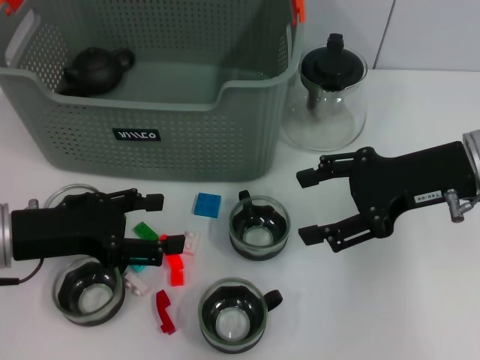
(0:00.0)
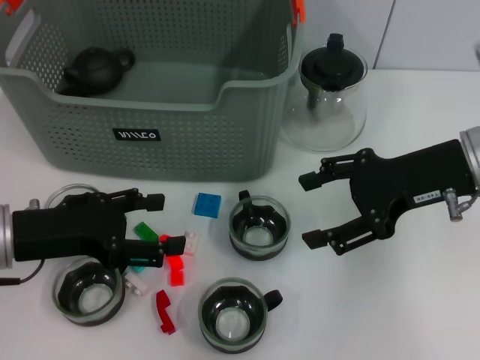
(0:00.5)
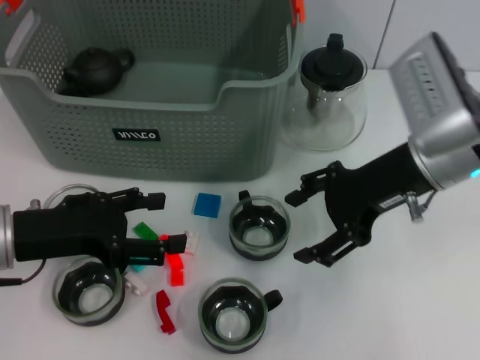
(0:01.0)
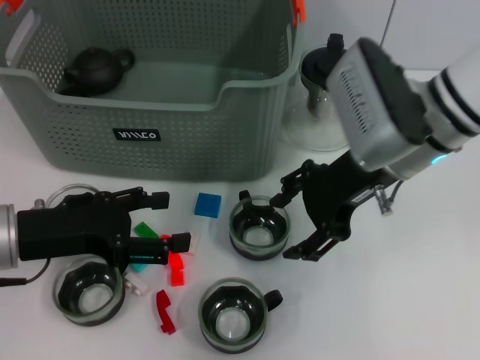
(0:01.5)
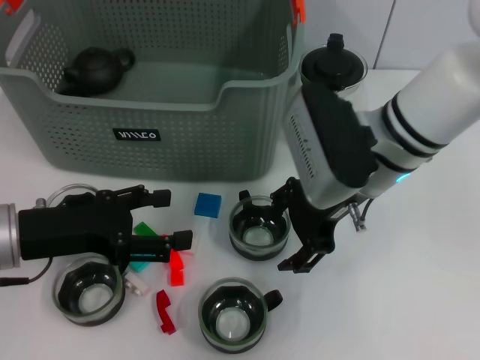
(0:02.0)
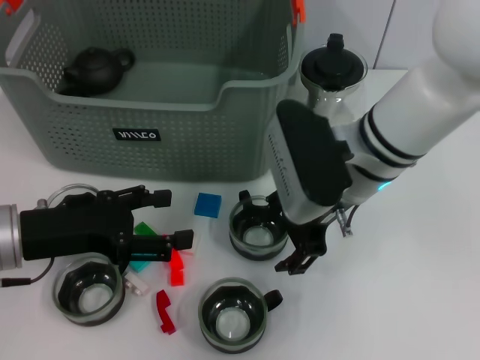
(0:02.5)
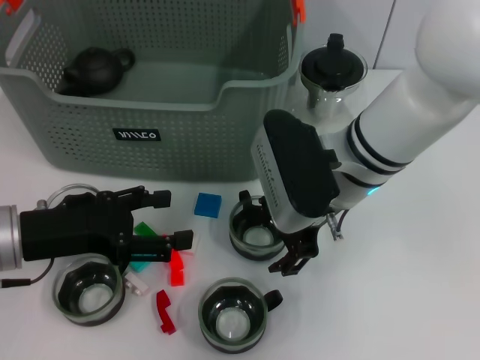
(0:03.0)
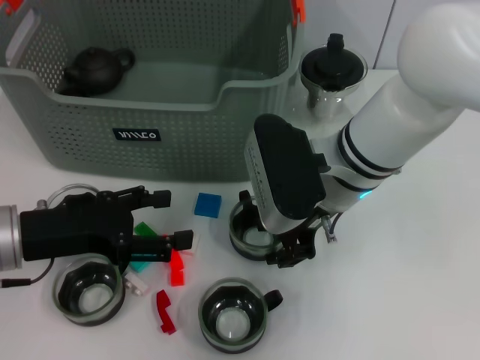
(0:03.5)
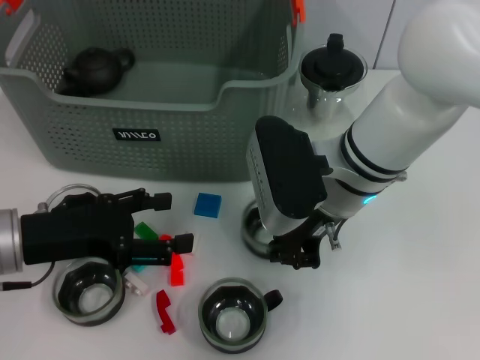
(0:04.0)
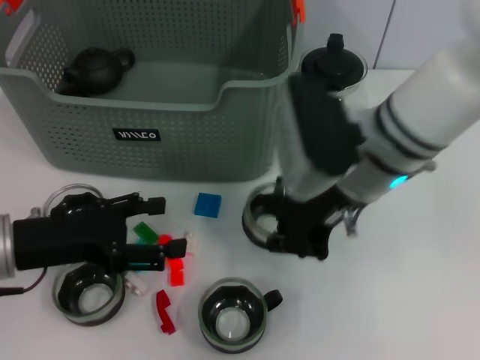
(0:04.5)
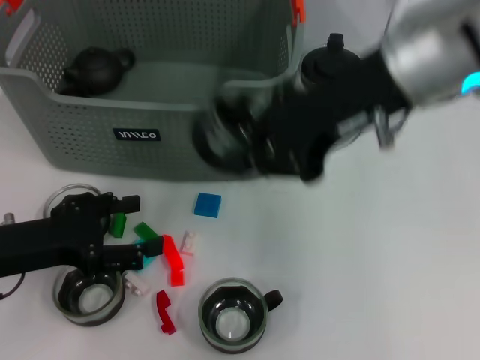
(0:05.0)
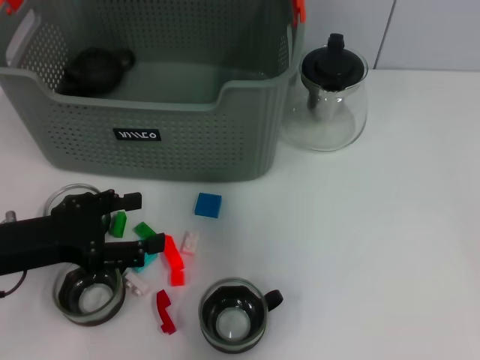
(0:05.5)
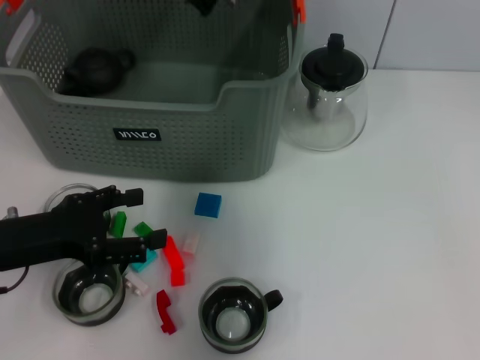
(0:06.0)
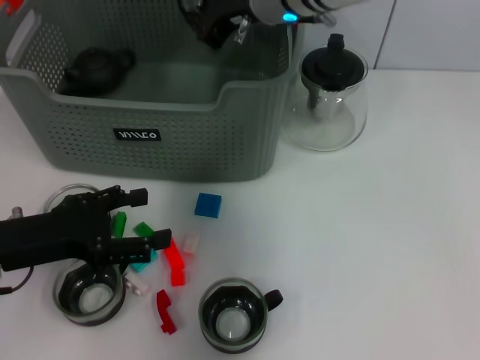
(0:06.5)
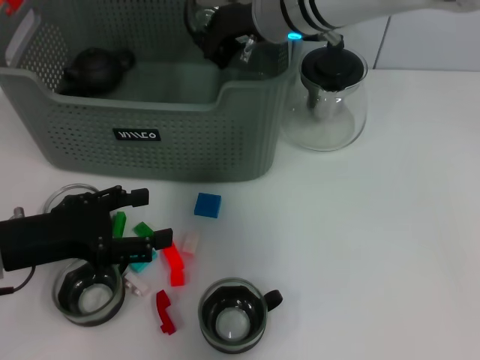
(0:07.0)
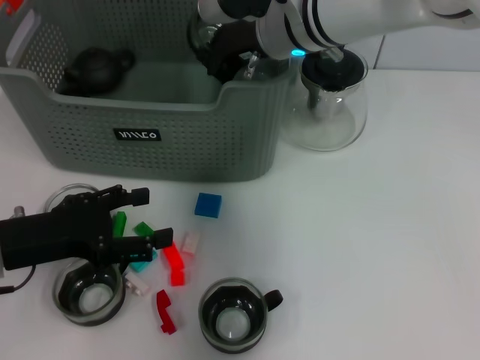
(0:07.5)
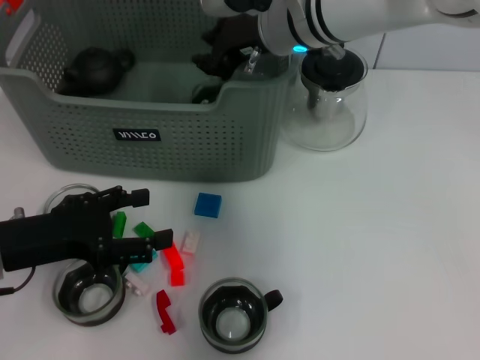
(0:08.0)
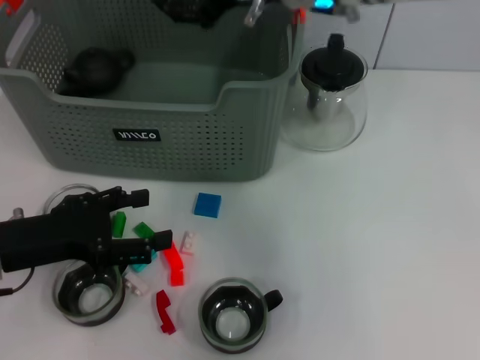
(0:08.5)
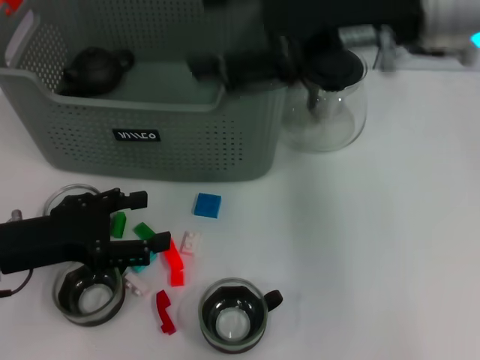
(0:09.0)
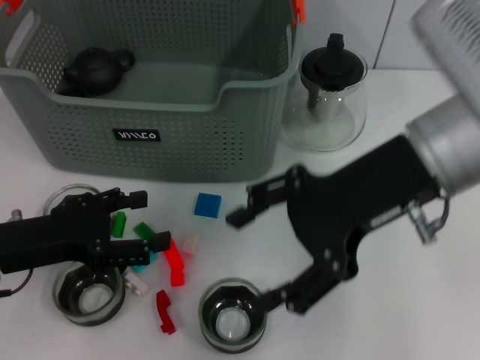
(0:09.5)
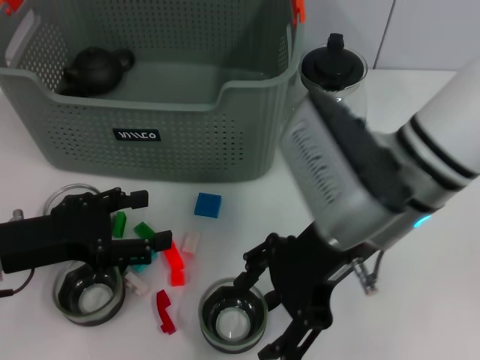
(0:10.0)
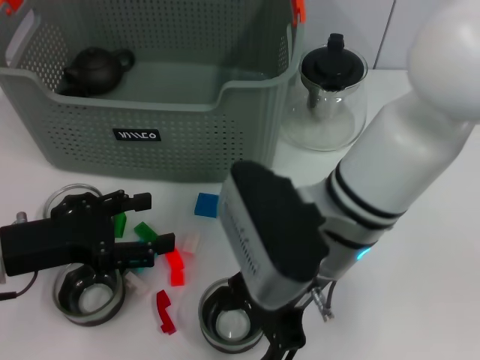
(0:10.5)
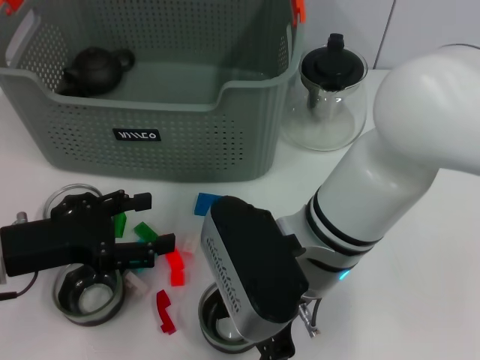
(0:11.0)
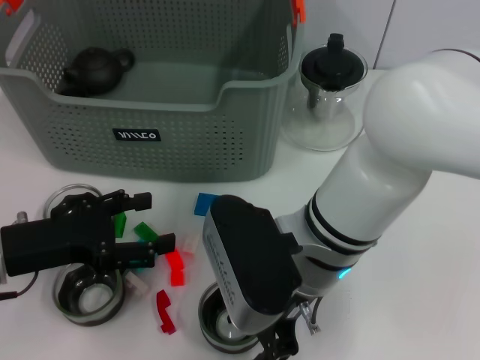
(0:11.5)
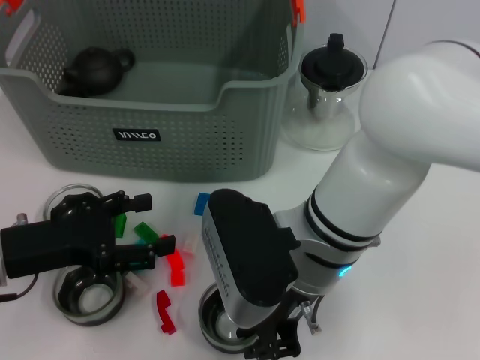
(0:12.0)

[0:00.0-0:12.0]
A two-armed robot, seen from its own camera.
Task of the whole recording: pick up the teacup on the table and place it into the storage bin, pick up the block on the table and place it into the storage bin.
Step, 0:00.0 to 0:04.0: Grasp the cup with right gripper.
Step, 0:04.5 to 0:08.5: Place the cup in the storage box with right gripper.
0:00.0 to 0:02.0: The right gripper is displaced to the left by approximately 10 cm.
0:02.0 to 0:04.0: The right gripper closes its fingers.
0:04.0 to 0:06.0: The right gripper travels upward and forward by some 15 cm.
0:06.0 to 0:08.0: The right gripper travels downward by approximately 5 cm.
0:08.0 to 0:10.0: The right gripper goes roughly 15 cm backward, and opens.
0:10.0 to 0:12.0: The right gripper moves downward and to the left, roughly 10 cm, and closes up.

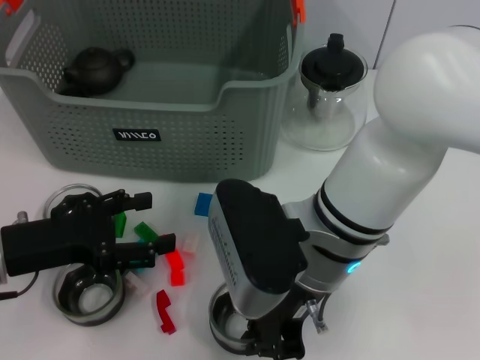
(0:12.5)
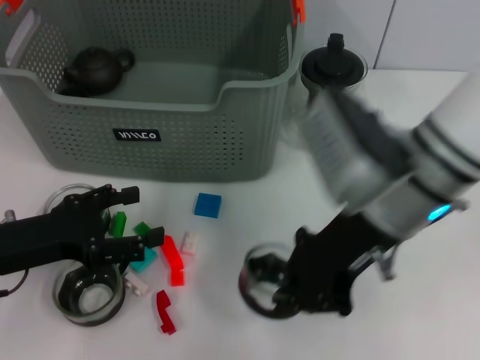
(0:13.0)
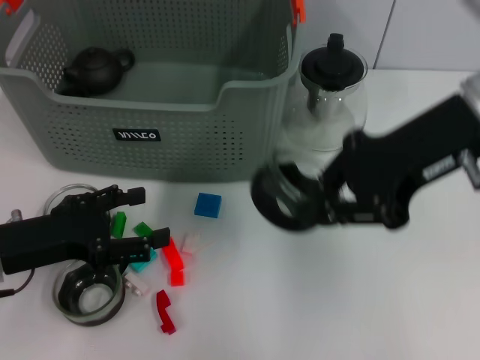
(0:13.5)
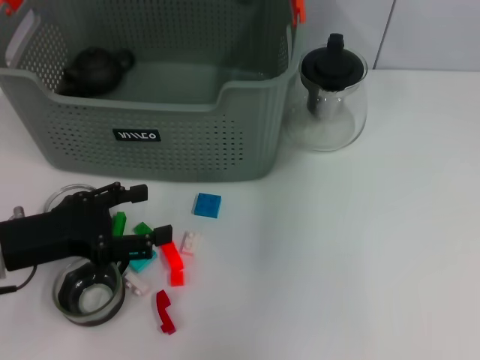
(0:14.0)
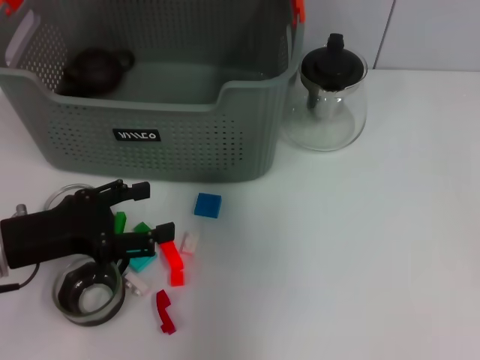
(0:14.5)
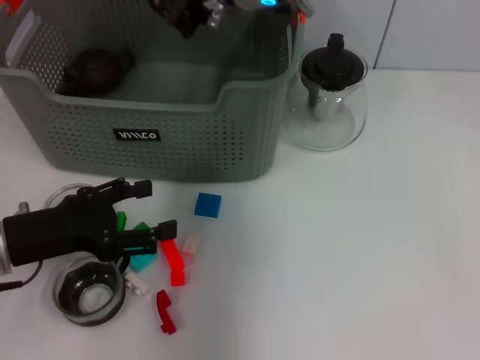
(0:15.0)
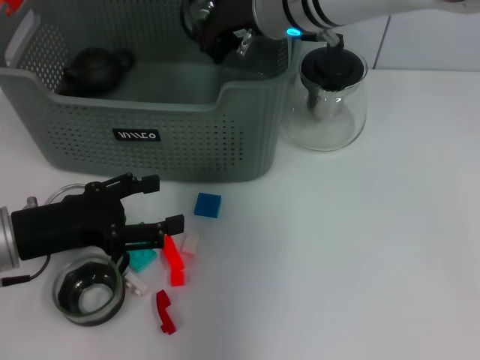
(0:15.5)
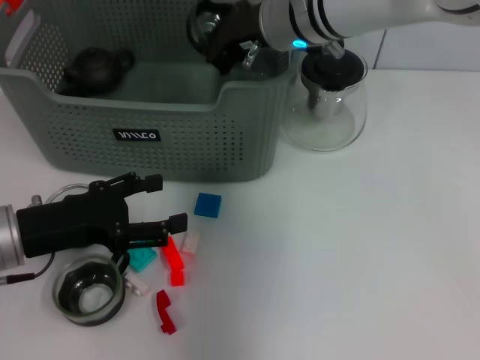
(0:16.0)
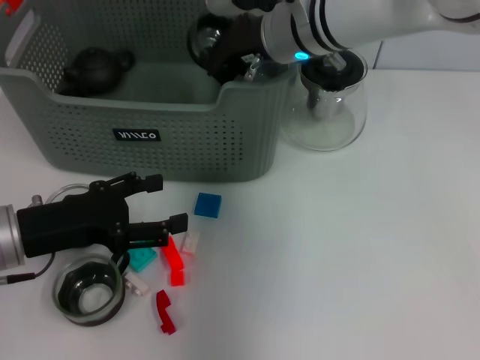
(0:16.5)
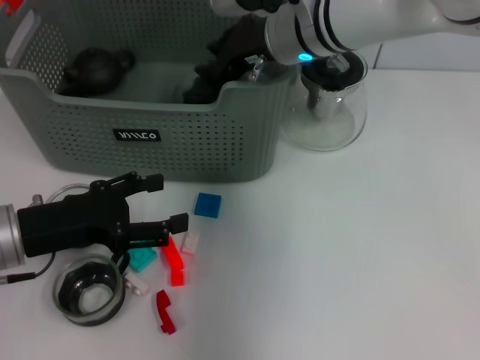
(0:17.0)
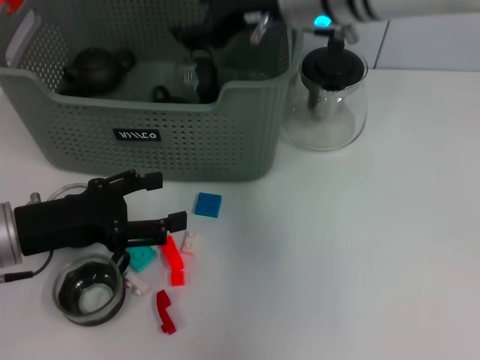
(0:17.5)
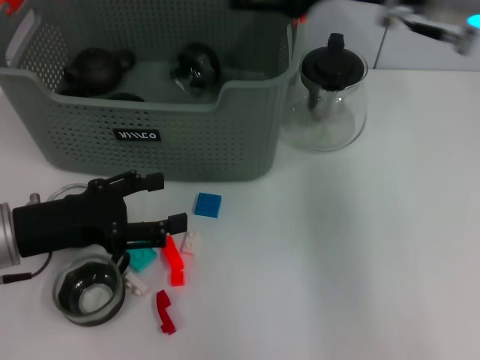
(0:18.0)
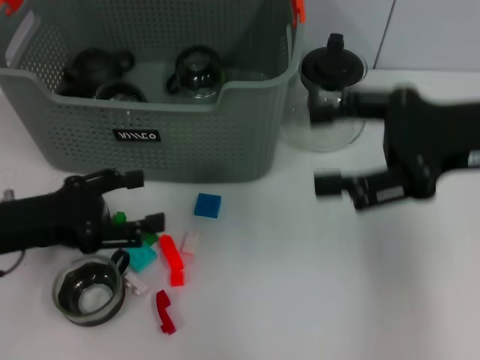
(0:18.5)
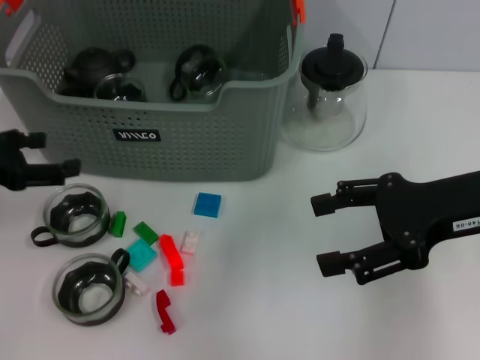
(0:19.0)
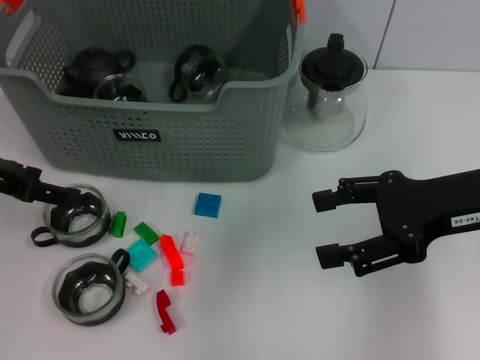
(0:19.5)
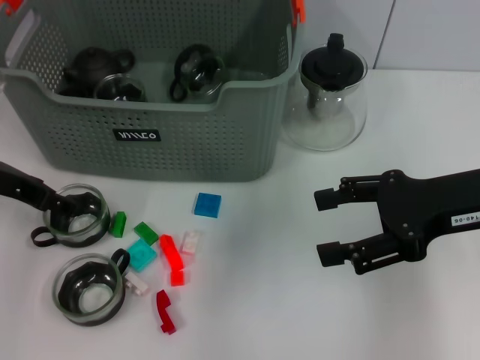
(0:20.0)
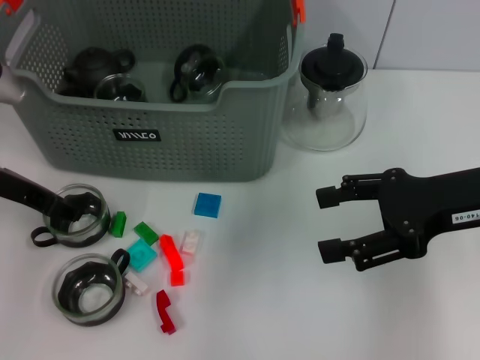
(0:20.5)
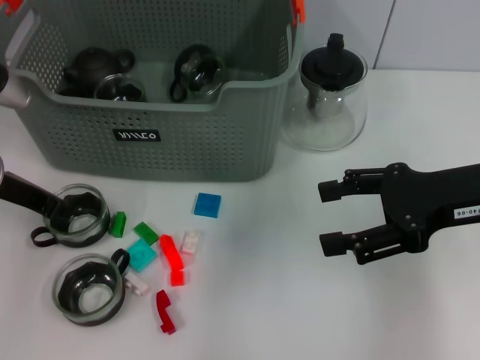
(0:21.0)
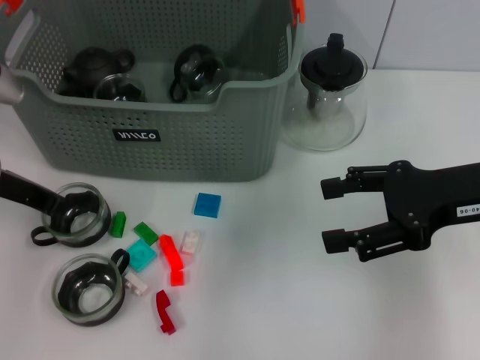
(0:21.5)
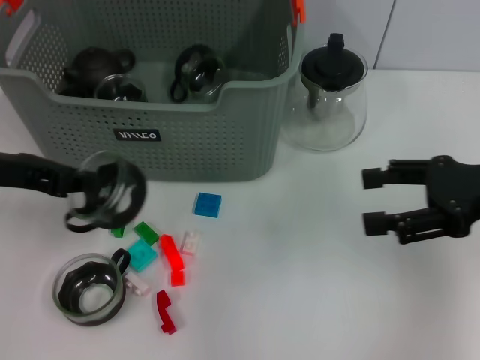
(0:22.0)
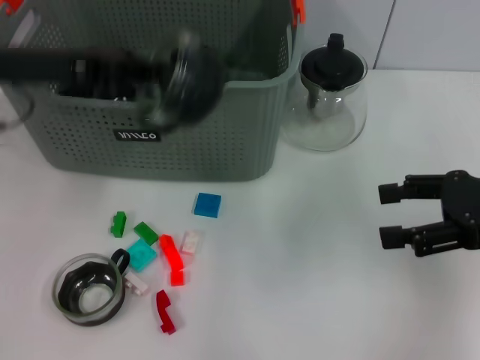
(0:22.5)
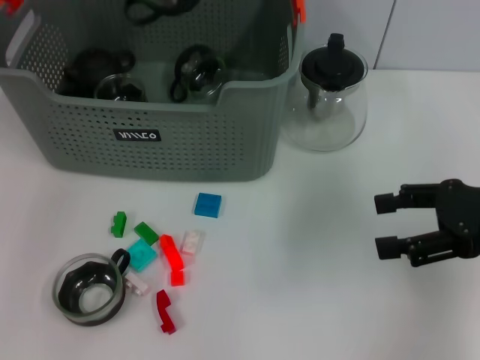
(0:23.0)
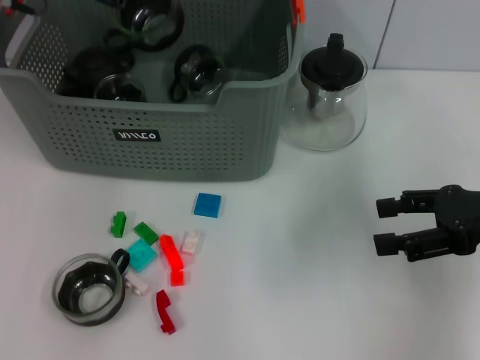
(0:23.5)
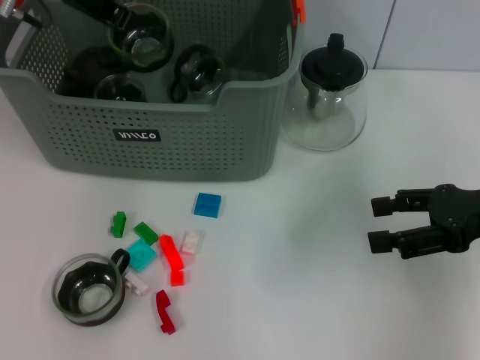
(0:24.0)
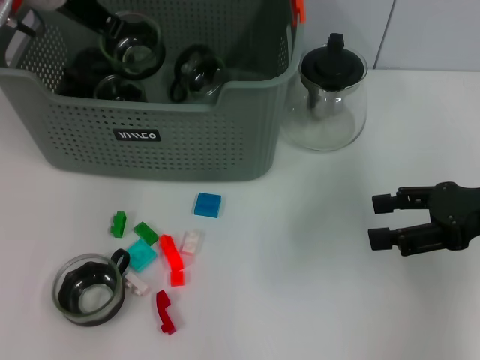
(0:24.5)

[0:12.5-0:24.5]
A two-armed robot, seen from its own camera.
Task of the whole recording: pick up the teacup on the table and place it into the storage bin, pick up the block on the table and place it into the storage bin.
Step, 0:12.5 to 0:17.5: Place the cup in the storage box with right gripper.
Step, 0:18.0 to 0:21.5: Grasp the cup with left gripper.
0:12.5 to 0:14.5: The right gripper moves forward and upward, some 25 cm.
0:14.5 to 0:16.5: The right gripper moves downward, roughly 10 cm.
0:16.5 to 0:18.5: The right gripper shifts roughly 25 cm to the right and backward, and opens up.
0:18.5 to 0:20.5: The left gripper heads forward, covering about 10 cm.
0:20.5 to 0:22.5: The left gripper is displaced upward by roughly 10 cm, and closes its fingers, while the right gripper moves to the right, approximately 5 cm.
0:22.5 to 0:24.5: The left gripper goes about 10 cm forward.

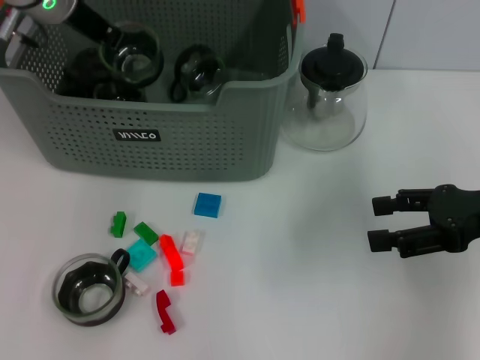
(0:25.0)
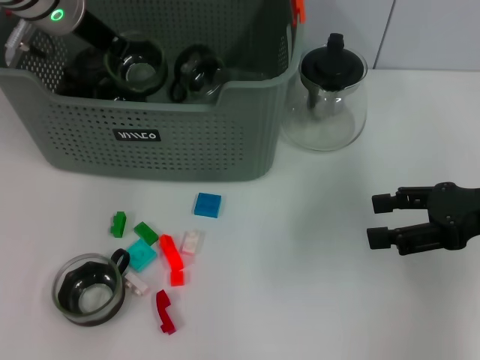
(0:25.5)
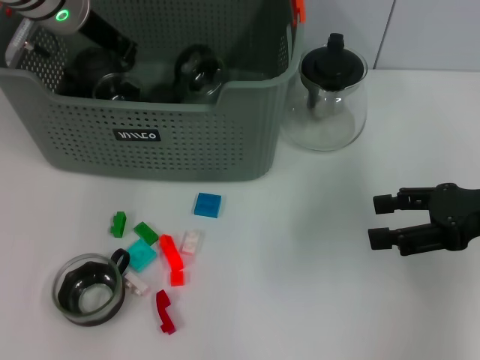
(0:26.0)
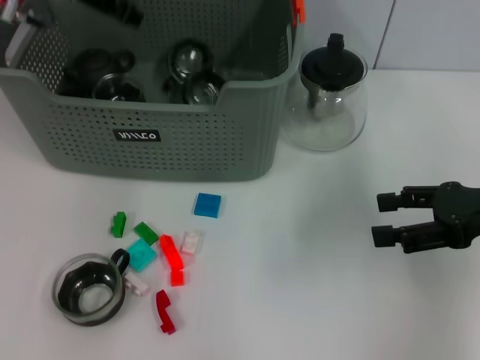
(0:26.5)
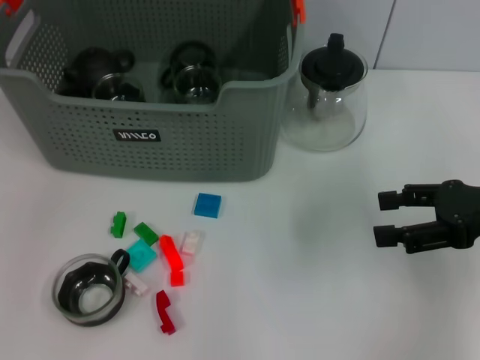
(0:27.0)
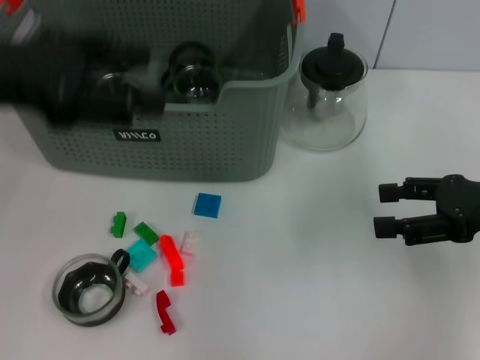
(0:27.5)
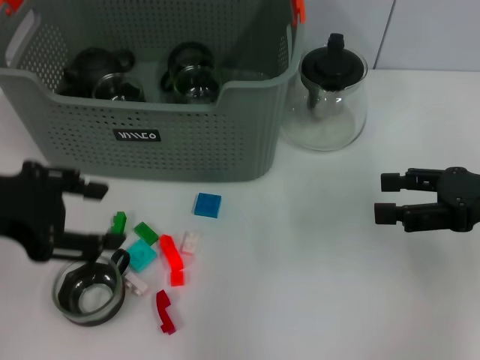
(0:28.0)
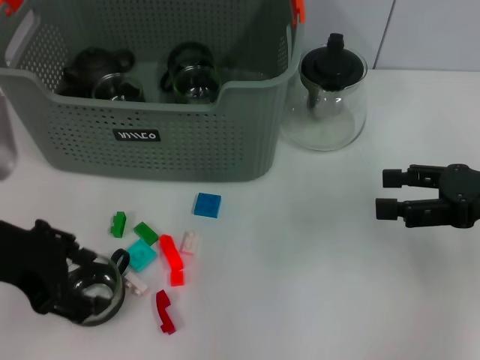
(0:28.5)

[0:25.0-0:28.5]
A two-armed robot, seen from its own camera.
Task of the whole recording: pick up the teacup on the table and place it into the storage bin, pick up the block on the table and place it into the storage bin.
Step, 0:25.0 to 0:27.0: Place the cup in the storage box with left gripper.
0:25.0 to 0:27.0: The left gripper heads upward and backward, covering some 10 cm, and opens its fingers.
0:27.0 to 0:28.5: The left gripper goes approximately 20 cm backward and downward.
